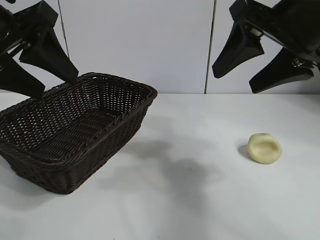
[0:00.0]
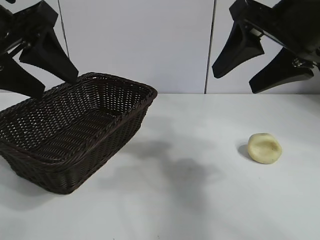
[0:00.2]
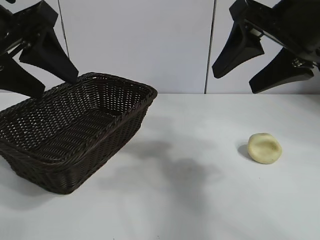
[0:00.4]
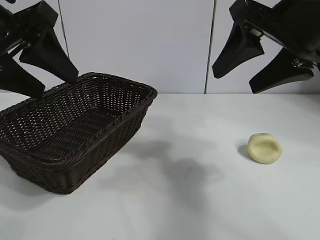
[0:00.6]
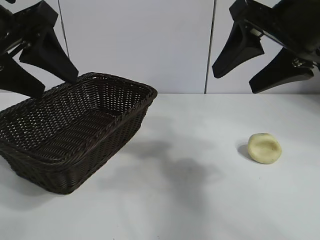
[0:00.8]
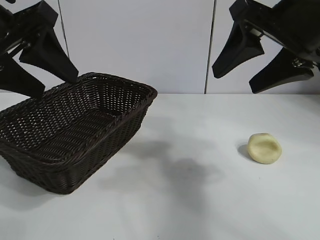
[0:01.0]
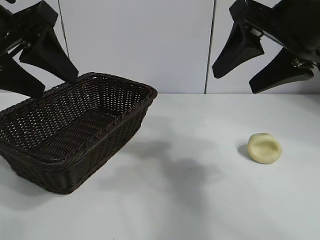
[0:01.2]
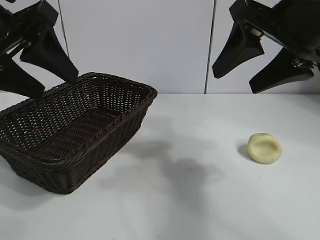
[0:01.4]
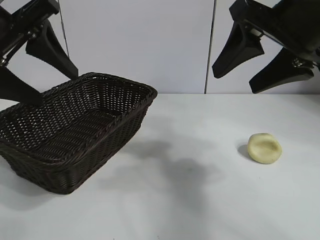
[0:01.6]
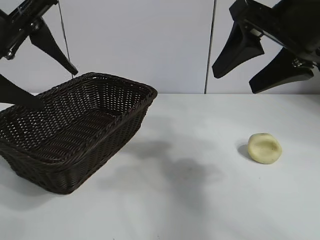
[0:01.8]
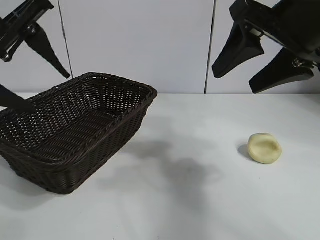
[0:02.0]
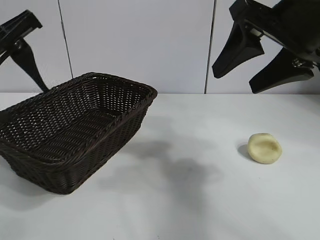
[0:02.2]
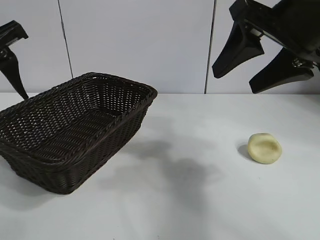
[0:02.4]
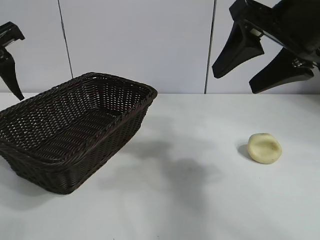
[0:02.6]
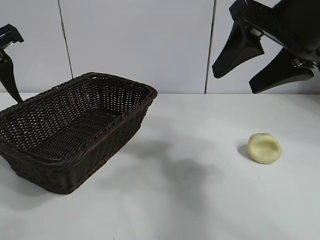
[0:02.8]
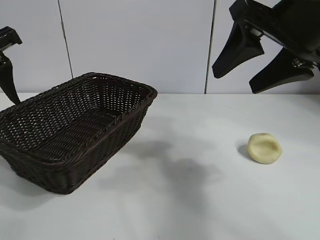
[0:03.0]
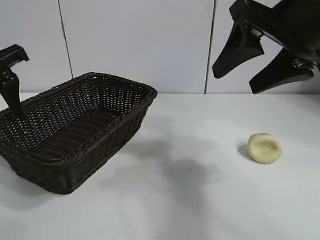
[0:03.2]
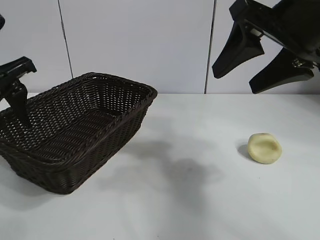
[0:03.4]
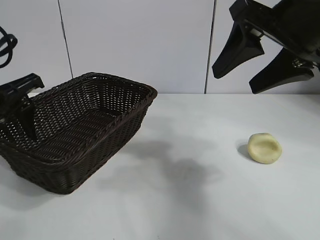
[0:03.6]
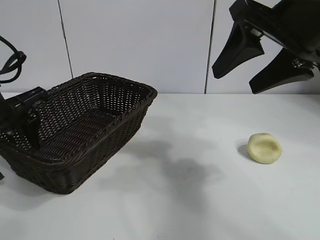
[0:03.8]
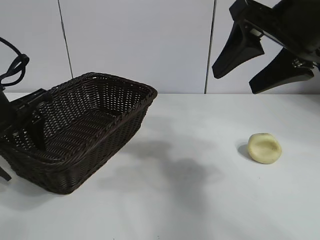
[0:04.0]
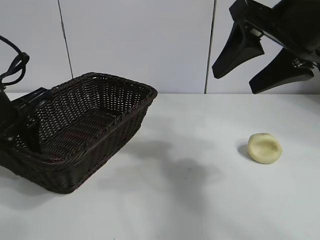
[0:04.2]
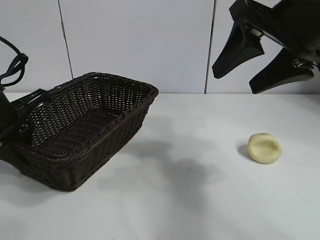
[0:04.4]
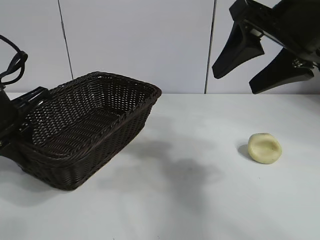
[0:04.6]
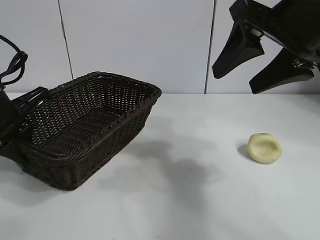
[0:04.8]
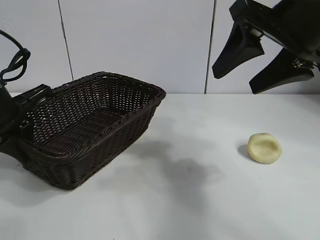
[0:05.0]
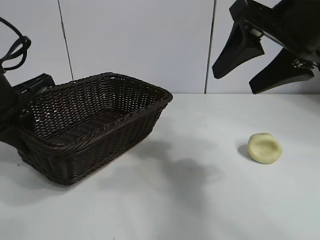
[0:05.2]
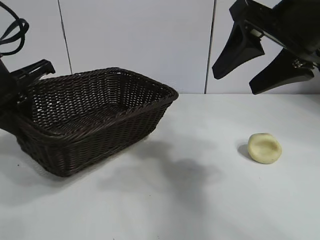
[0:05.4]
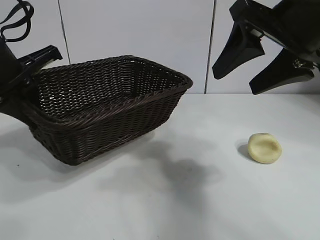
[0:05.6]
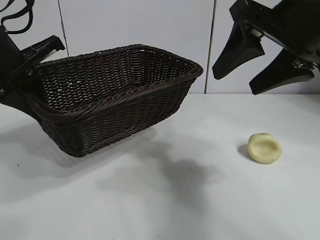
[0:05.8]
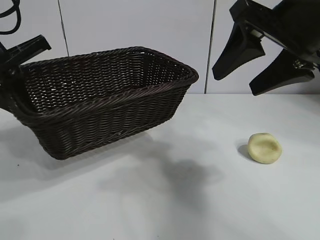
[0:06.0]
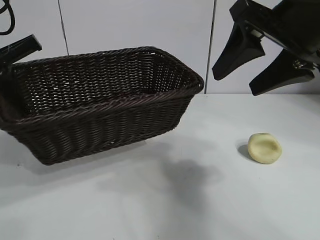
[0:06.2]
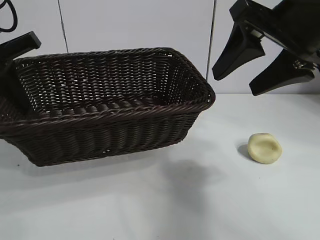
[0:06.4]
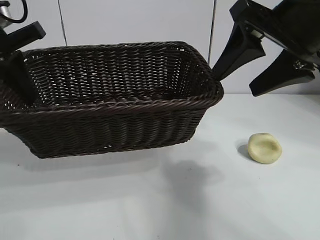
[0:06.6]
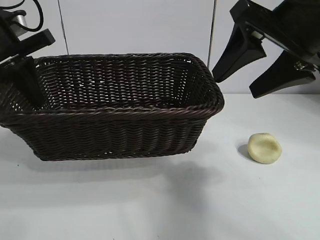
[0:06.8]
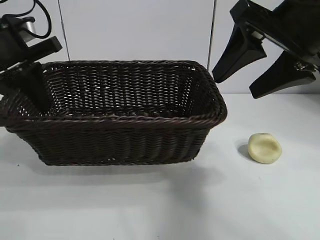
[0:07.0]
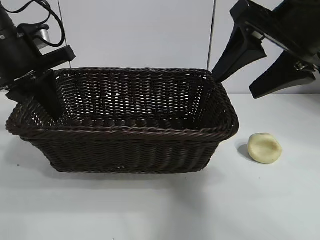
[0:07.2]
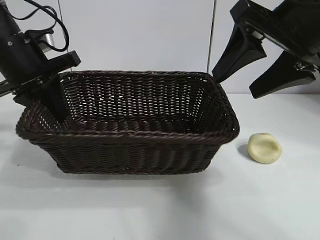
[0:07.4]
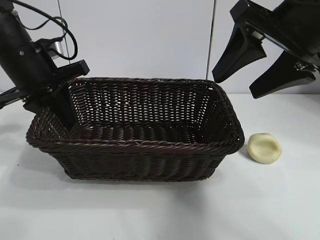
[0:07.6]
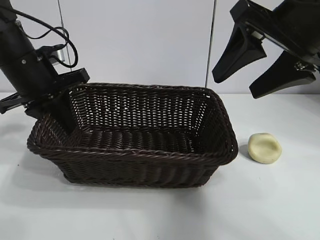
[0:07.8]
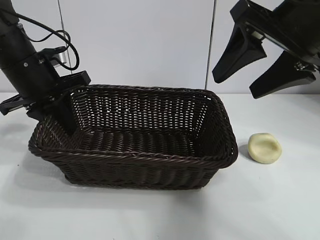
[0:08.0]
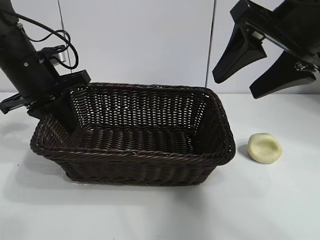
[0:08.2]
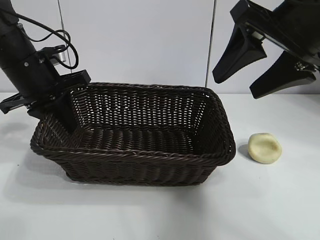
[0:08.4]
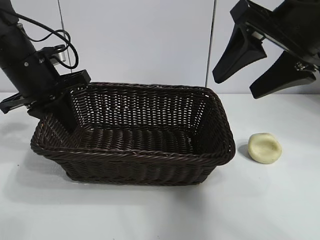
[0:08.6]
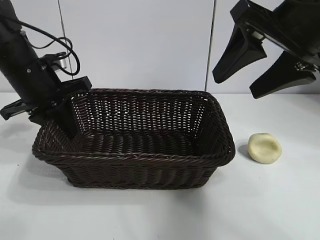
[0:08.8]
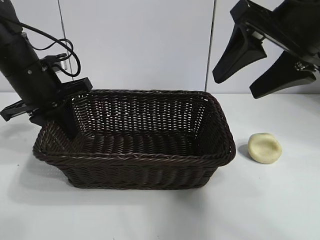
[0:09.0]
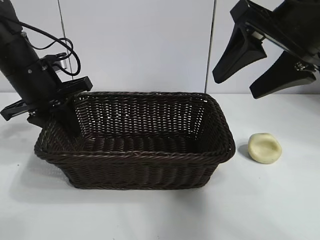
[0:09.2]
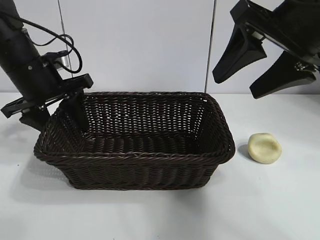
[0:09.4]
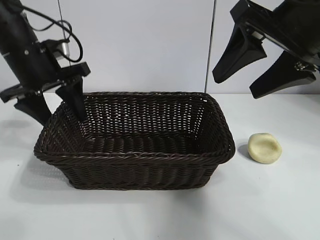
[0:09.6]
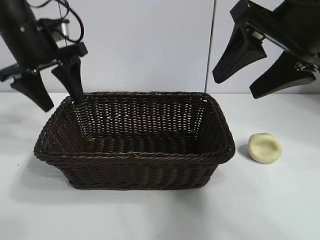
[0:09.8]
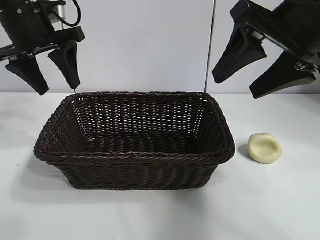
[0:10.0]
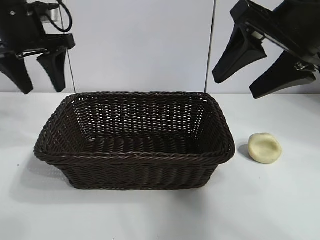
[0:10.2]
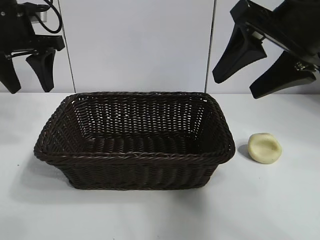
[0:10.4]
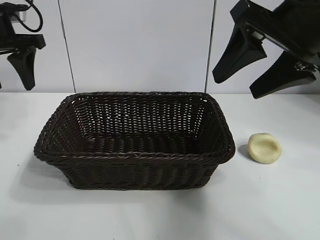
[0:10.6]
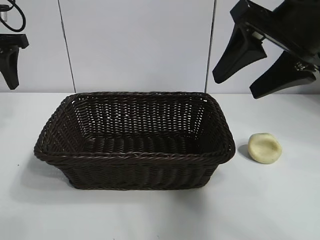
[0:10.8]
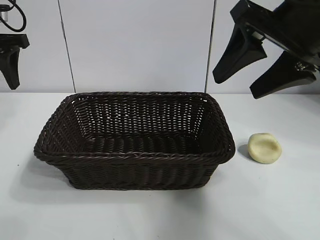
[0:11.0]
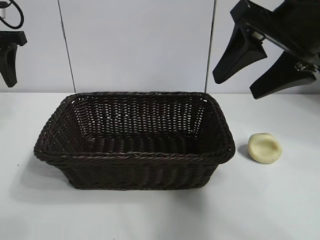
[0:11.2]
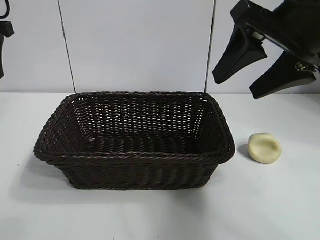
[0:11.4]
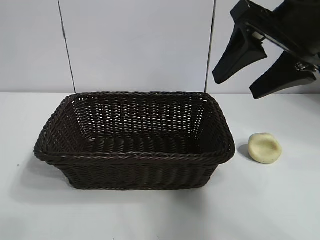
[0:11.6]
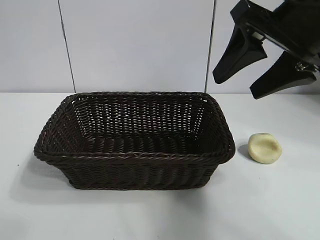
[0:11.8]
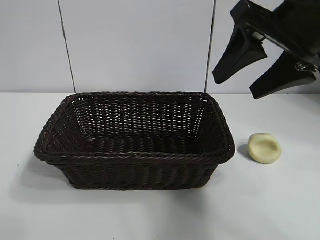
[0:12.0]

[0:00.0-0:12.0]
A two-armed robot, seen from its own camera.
Task of the whole recording: pick up the egg yolk pastry and put it into the basket.
Step, 0:01.4 to 0:04.6: Grasp the basket with left gripper.
Step, 0:04.8 to 0:09.8: Place the basket in the center of view with left gripper.

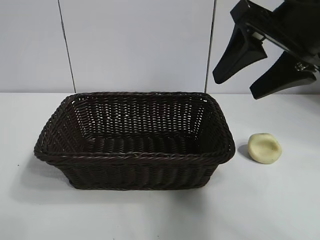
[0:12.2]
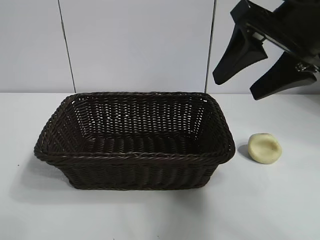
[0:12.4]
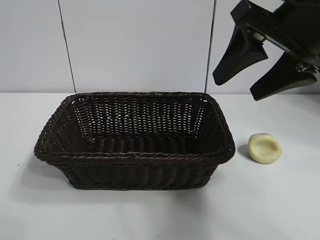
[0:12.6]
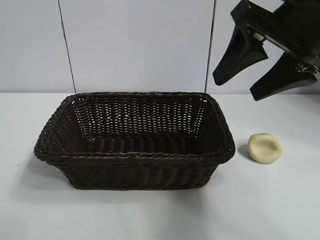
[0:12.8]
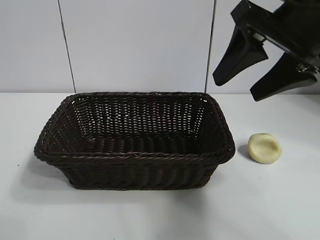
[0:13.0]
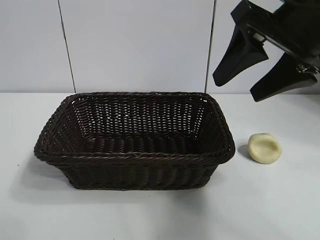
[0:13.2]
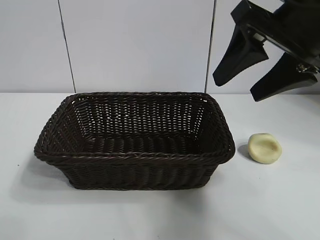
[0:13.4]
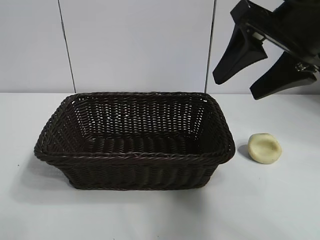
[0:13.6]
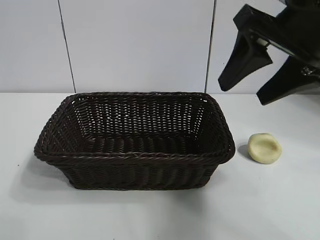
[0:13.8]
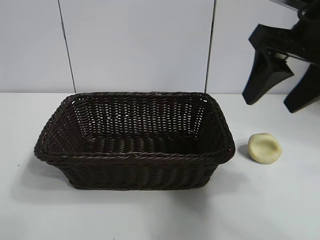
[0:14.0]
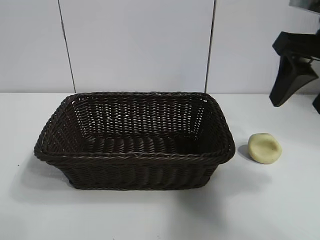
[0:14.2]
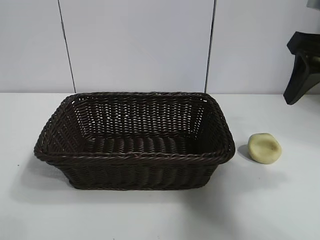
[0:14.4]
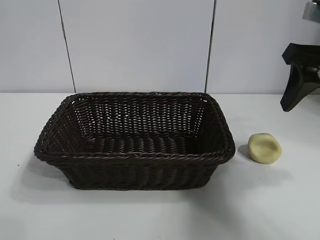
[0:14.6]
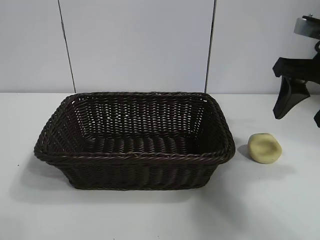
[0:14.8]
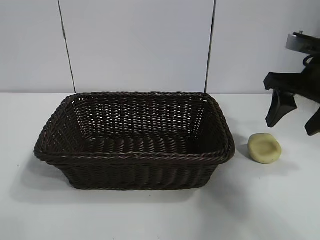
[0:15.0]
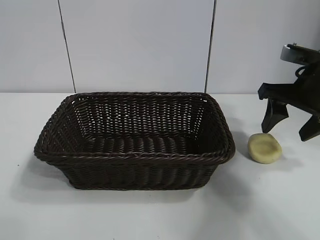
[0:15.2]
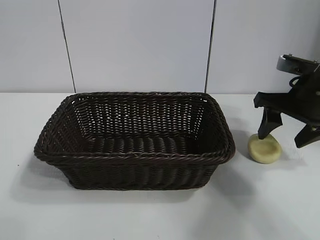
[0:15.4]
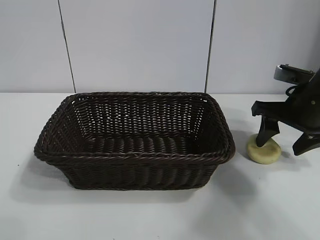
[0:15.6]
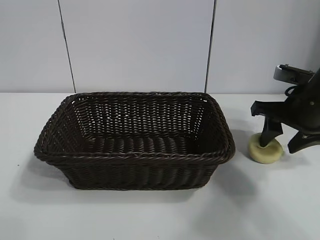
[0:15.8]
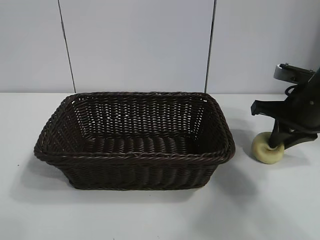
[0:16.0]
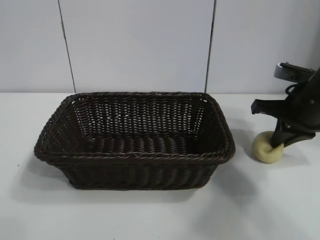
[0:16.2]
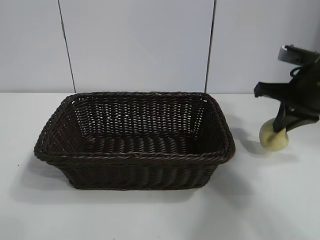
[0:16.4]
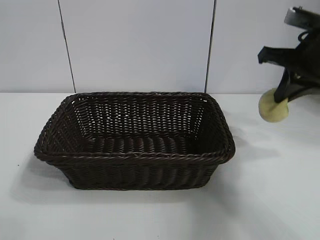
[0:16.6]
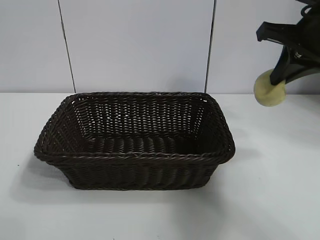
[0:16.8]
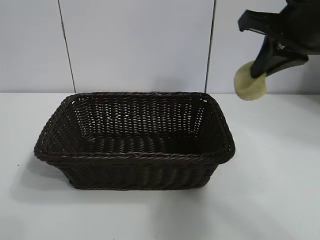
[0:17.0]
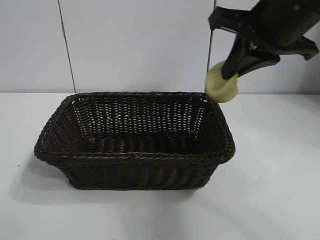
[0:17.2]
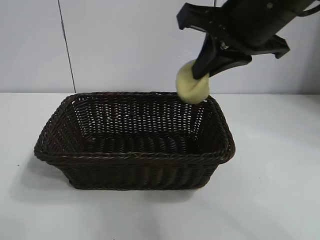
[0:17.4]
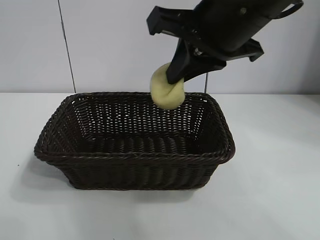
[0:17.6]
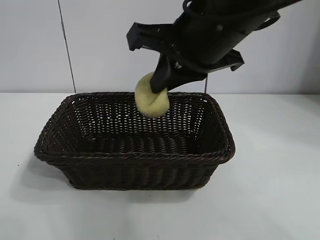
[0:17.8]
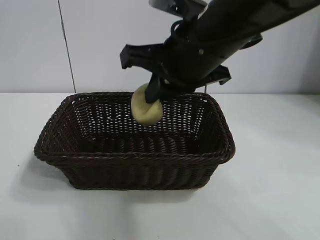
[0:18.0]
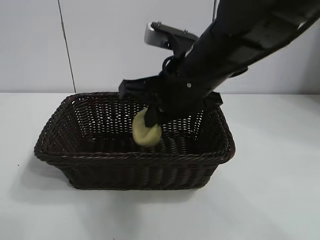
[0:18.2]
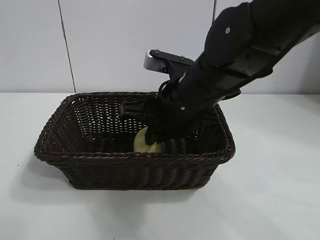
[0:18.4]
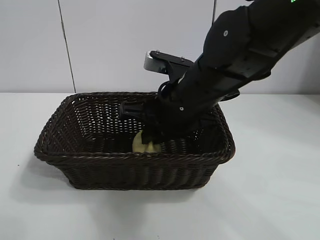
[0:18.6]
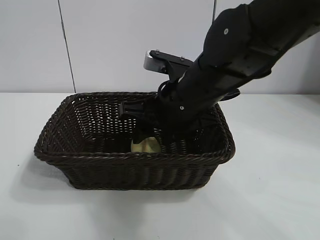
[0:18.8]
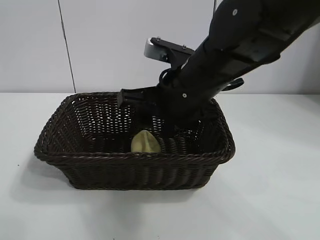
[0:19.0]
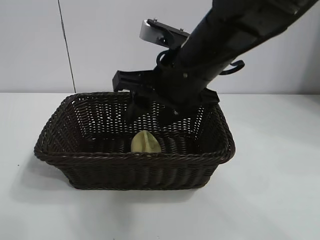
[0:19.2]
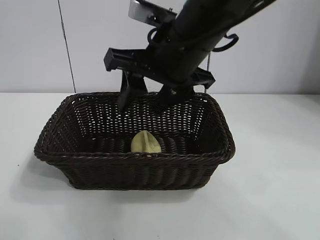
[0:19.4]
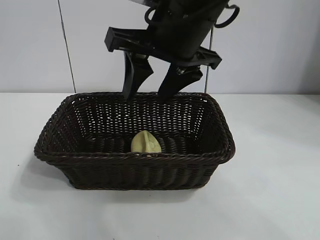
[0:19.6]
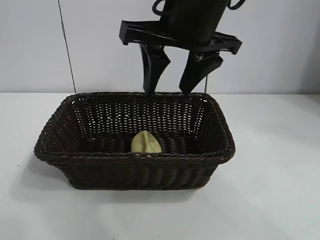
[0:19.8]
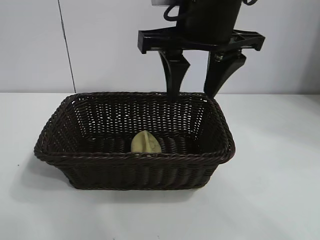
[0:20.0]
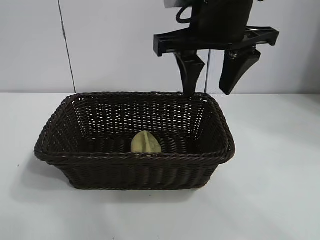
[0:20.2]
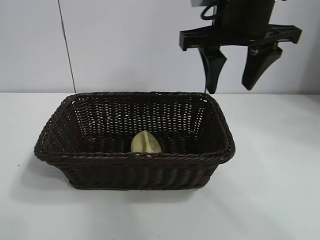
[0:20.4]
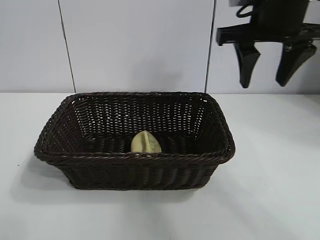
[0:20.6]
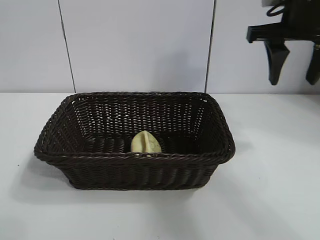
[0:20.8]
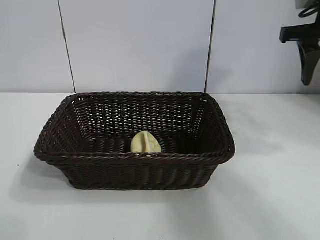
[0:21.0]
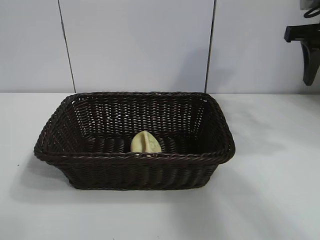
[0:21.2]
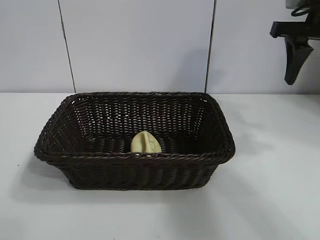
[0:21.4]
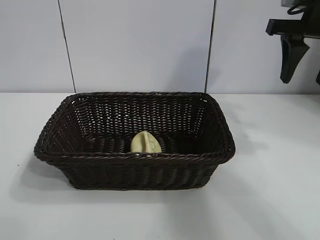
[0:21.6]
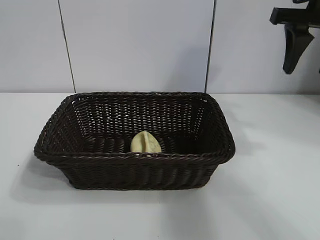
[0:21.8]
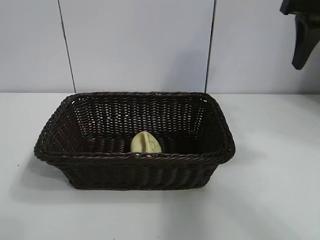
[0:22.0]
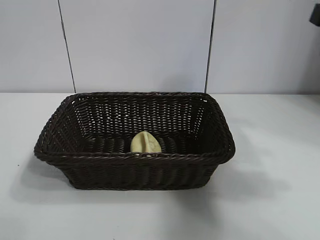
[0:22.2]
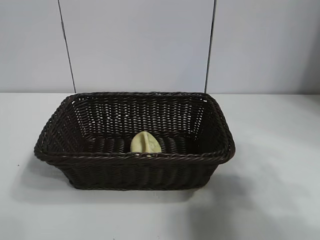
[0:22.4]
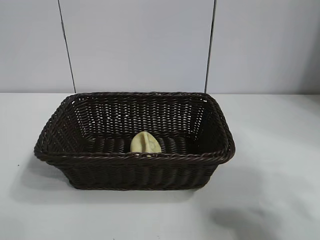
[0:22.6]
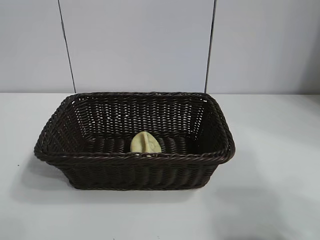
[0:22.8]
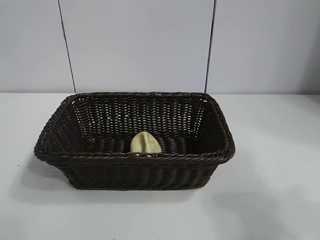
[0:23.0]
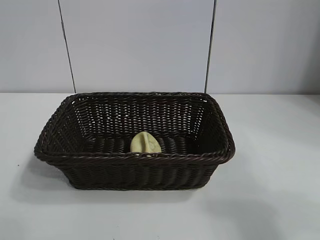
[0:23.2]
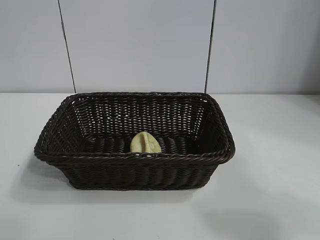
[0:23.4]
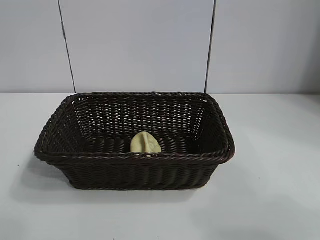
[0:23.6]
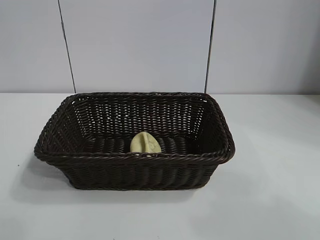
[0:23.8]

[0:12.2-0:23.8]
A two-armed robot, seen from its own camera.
Task of the whole recording: pick up the egg yolk pastry and put it into the basket.
Step, 0:12.2 to 0:16.0: Grasp egg yolk pastry with right gripper.
Step, 0:16.2 to 0:18.8: Place the egg yolk pastry in the basket with right gripper.
